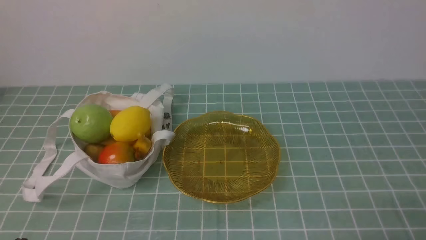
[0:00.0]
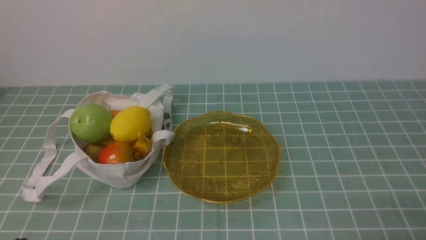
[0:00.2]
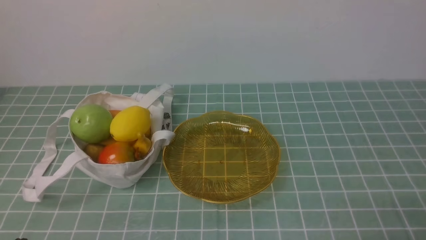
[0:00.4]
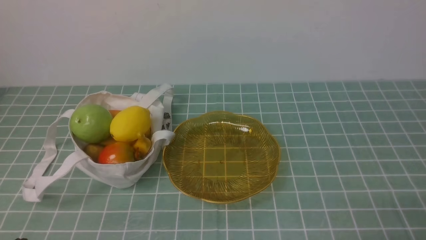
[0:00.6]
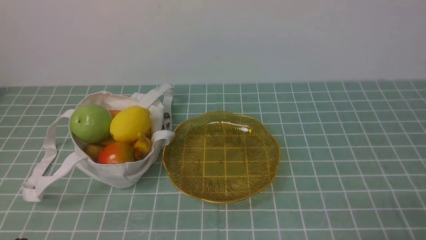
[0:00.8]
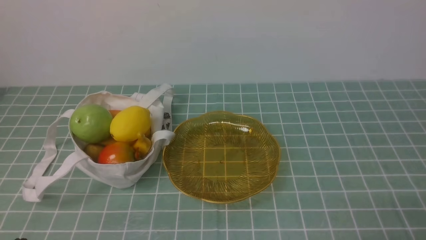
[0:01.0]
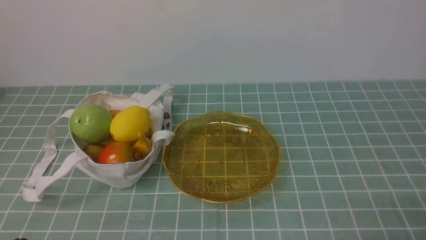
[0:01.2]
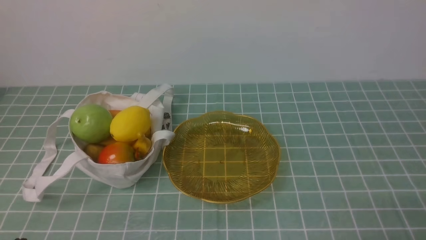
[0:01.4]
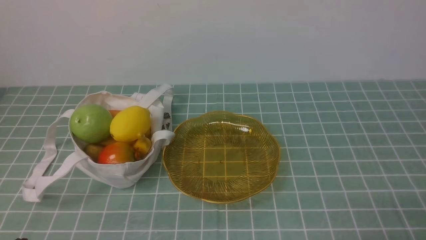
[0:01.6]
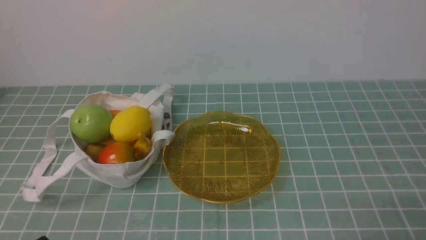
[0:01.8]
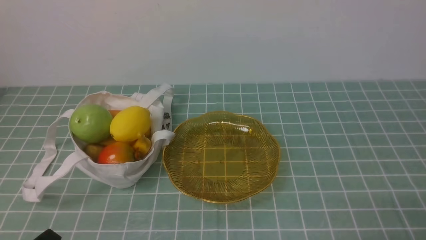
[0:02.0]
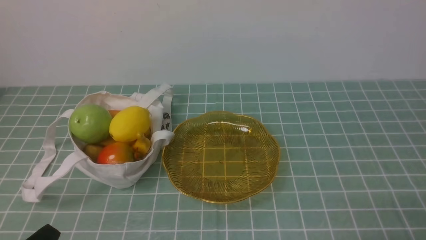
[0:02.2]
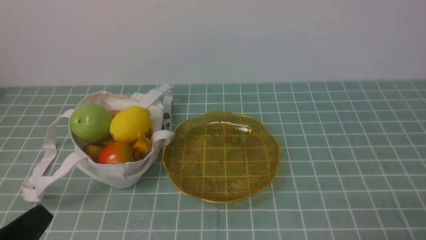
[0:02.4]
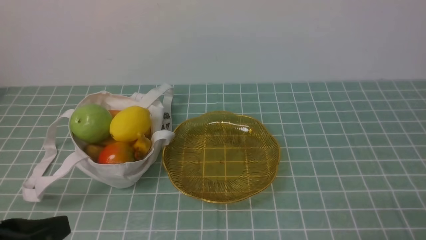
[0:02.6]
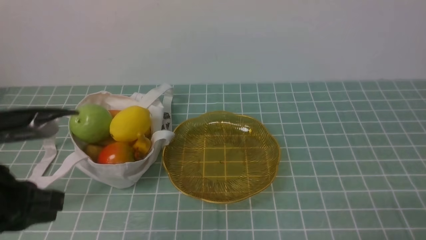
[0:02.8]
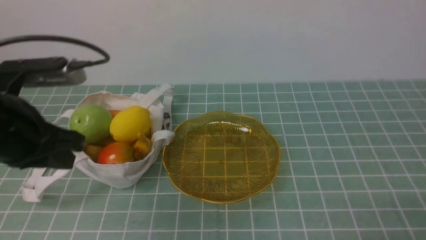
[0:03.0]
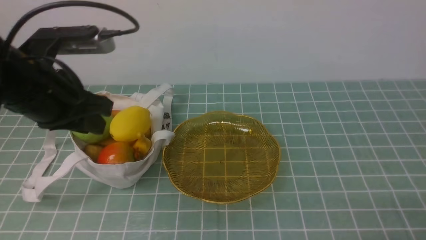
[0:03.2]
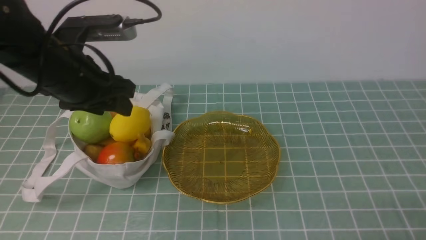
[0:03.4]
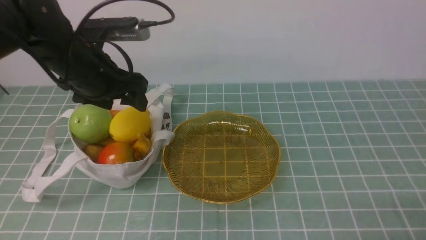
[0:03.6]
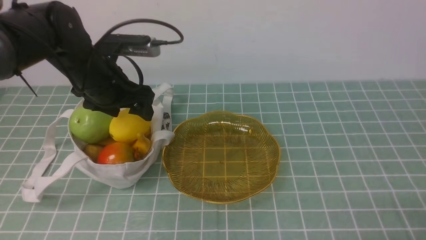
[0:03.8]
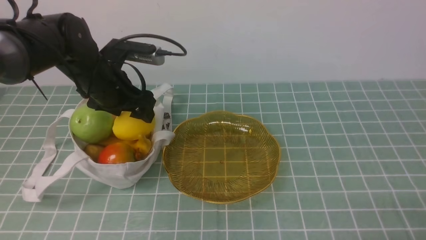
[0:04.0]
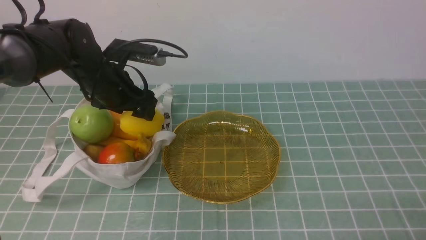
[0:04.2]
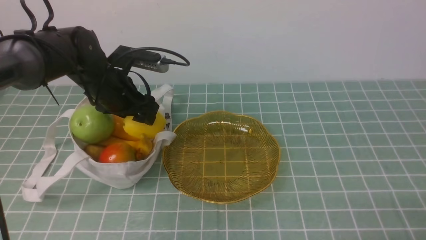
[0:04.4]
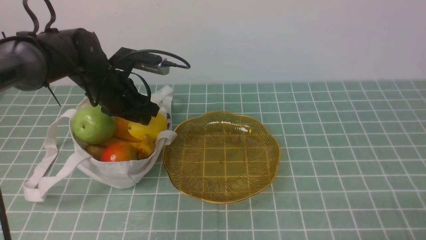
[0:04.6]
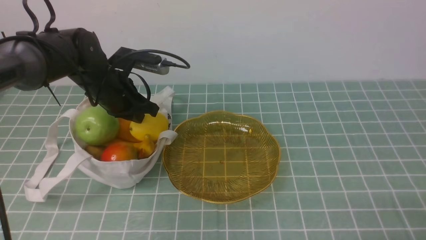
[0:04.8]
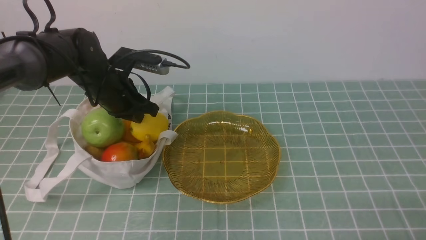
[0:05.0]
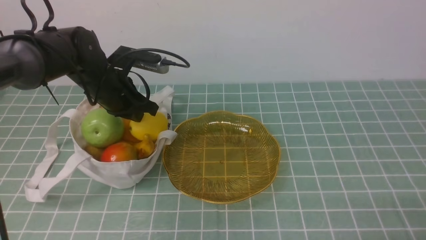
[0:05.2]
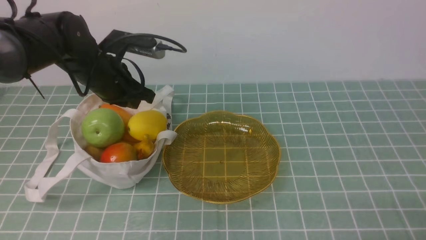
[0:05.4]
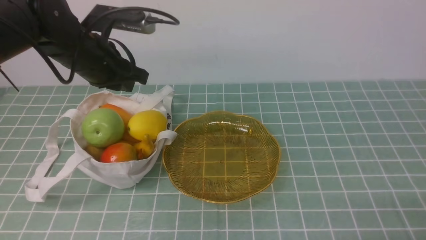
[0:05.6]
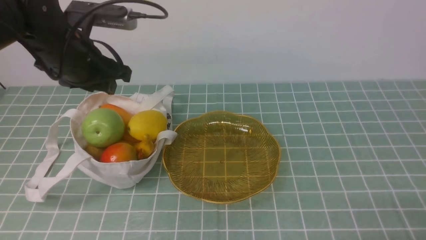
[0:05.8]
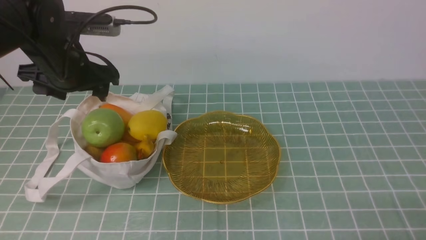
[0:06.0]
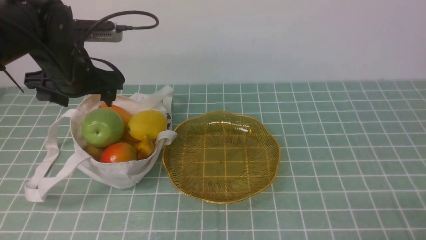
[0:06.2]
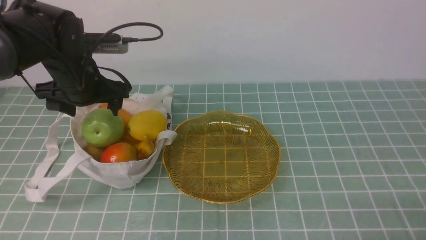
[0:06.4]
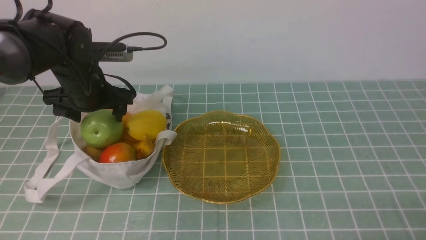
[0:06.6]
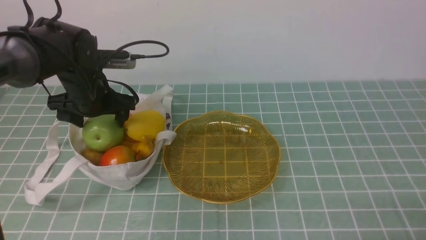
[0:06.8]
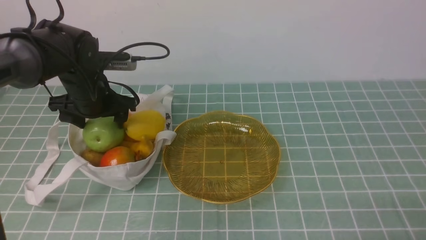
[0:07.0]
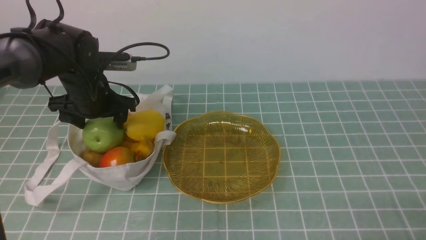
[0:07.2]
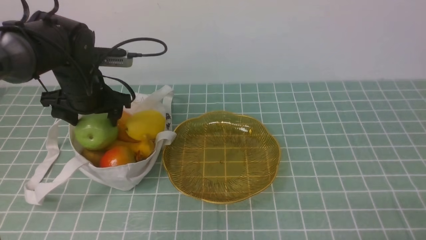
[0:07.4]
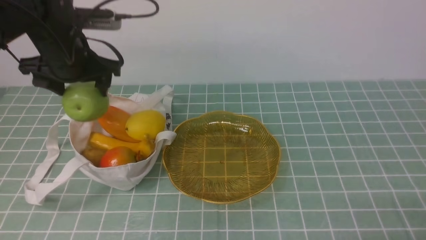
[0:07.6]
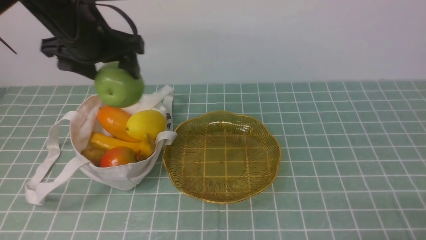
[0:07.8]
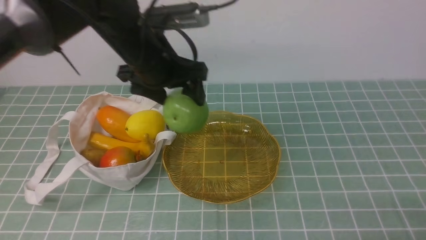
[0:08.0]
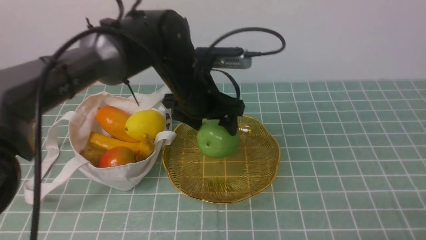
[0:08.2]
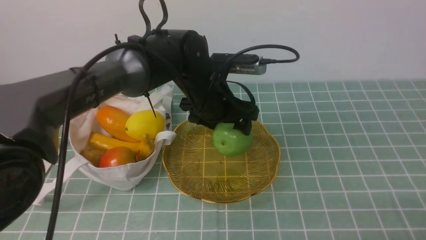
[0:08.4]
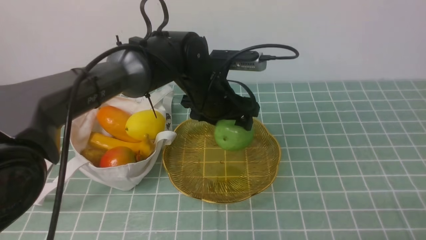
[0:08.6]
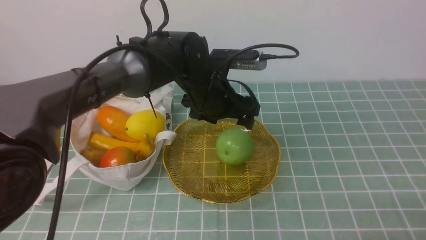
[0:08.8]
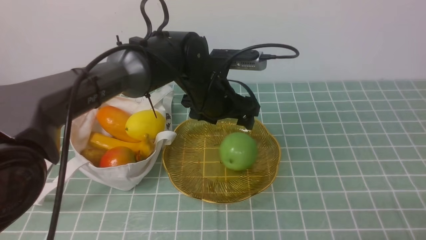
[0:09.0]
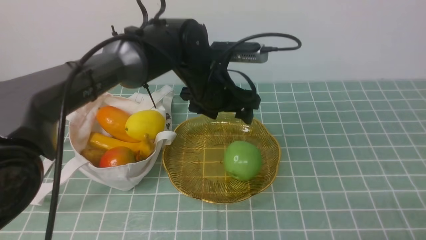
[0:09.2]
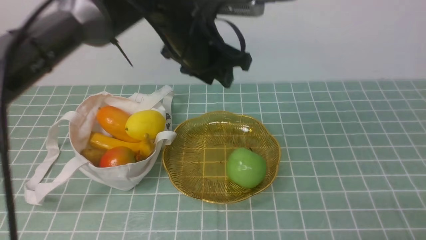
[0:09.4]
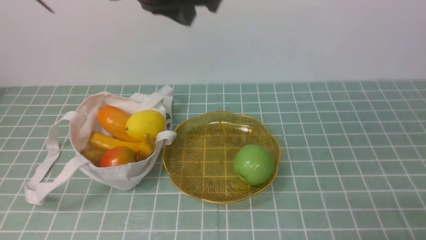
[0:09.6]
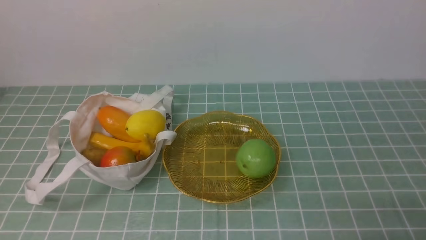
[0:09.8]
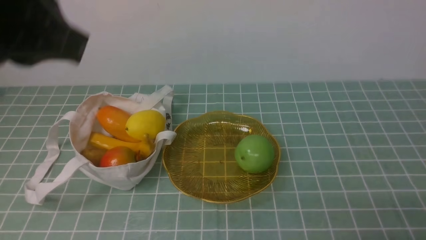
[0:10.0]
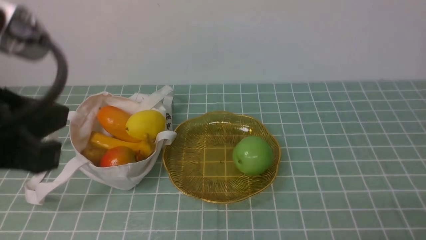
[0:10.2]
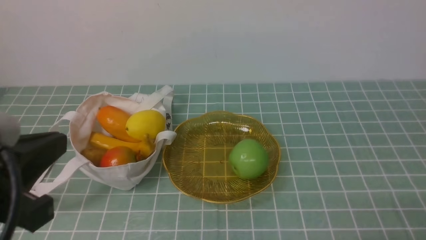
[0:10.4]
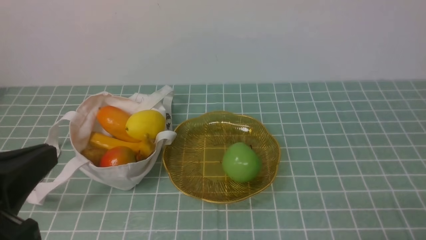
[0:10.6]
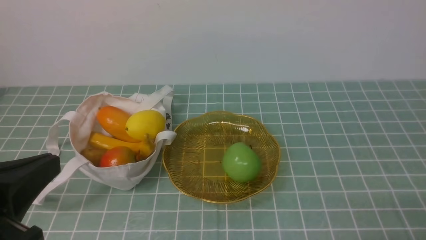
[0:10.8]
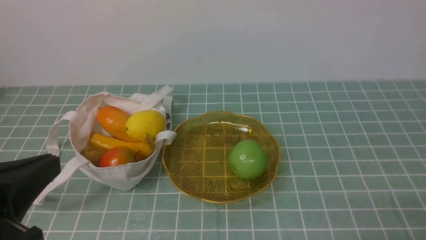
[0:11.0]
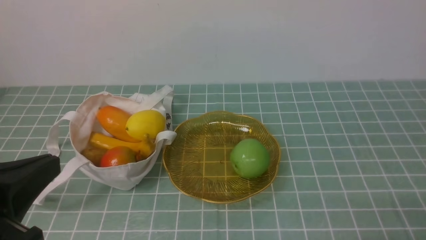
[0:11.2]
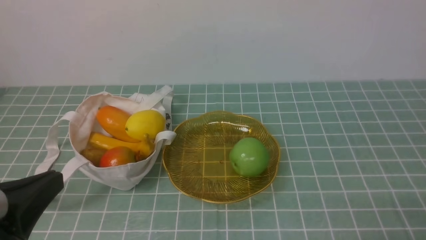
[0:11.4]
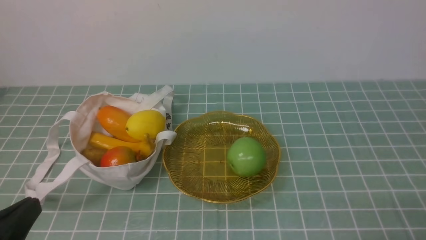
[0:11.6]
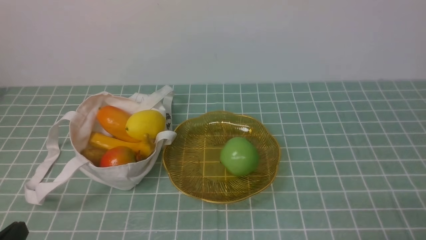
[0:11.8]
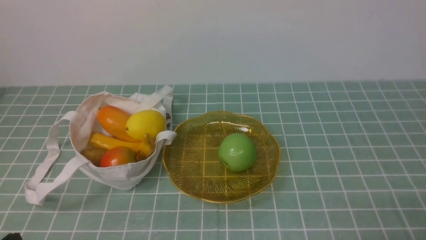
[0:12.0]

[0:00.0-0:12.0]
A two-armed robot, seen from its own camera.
Step, 0:00.0 to 0:07.2: use the left arm to grab an apple from the bag.
Step, 0:07.4 to 0:08.8: use the left arm to put the apple into the empty plate on the right.
0:01.6 to 0:03.0: The left gripper travels upward and forward by about 20 cm.
0:03.0 to 0:04.4: The left gripper moves forward, about 25 cm, and opens up.
0:04.4 to 0:06.0: The left gripper heads upward, covering about 5 cm, and closes, then opens again.
0:06.0 to 0:07.6: The left gripper moves some 10 cm downward and comes back.
0:07.6 to 0:09.0: The left gripper travels to the right by some 20 cm.
0:09.0 to 0:10.4: The left gripper moves backward, to the left and upward, roughly 35 cm, and closes up.
0:10.4 to 0:12.0: The left gripper shifts some 20 cm downward.

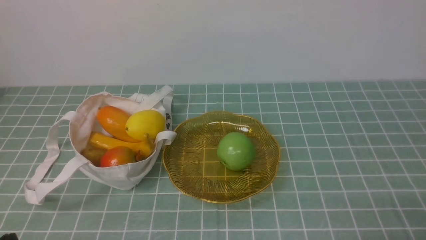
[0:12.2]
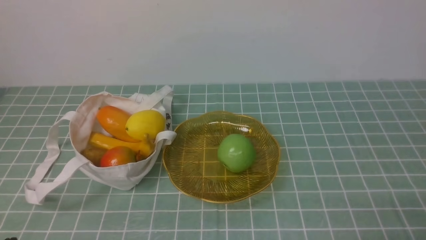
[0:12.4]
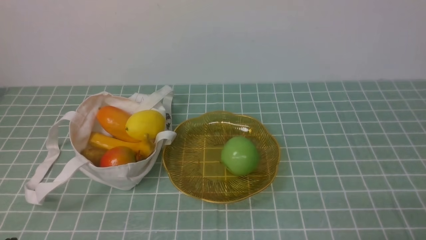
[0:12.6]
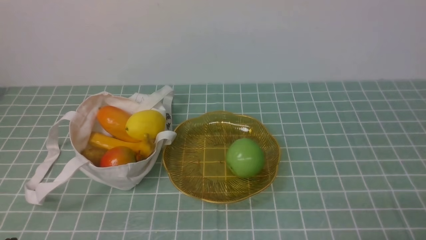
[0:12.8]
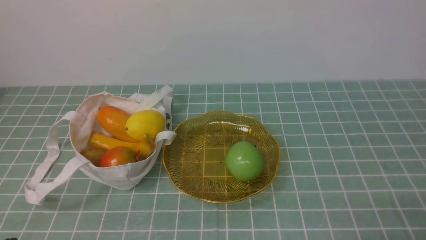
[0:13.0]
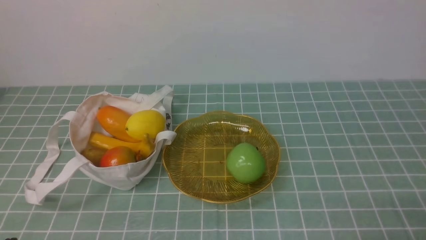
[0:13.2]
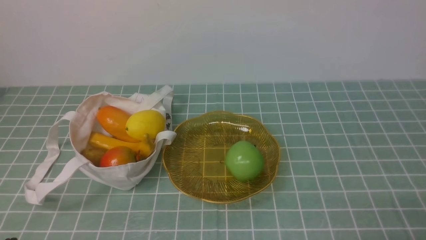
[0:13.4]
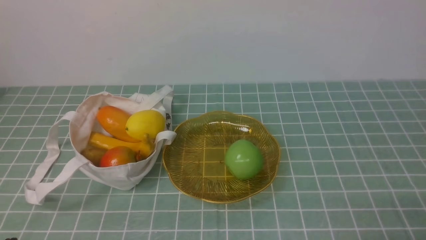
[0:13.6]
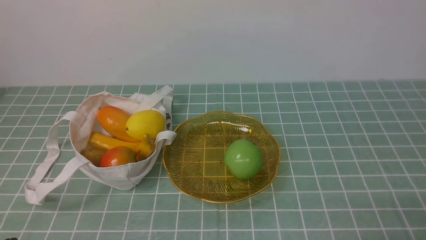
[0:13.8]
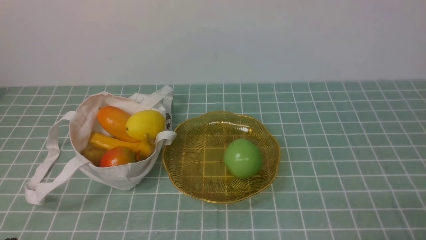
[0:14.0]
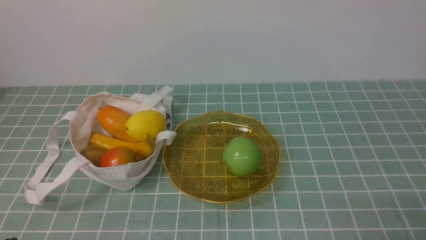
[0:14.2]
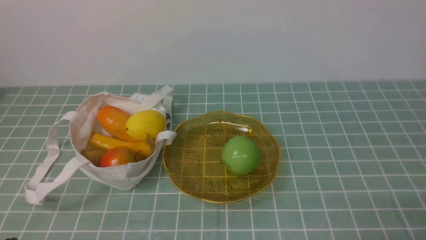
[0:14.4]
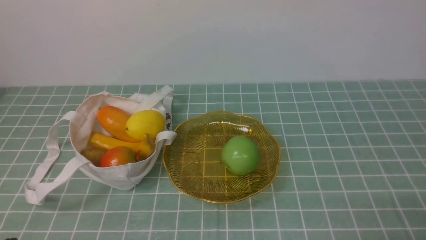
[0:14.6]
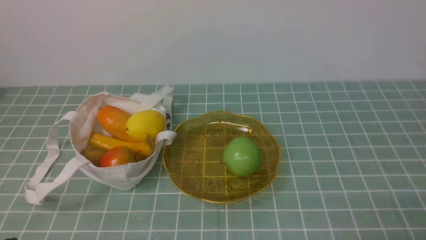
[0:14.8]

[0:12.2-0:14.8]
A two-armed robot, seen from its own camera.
0:12.2 to 0:14.8: The two grippers keep their place.

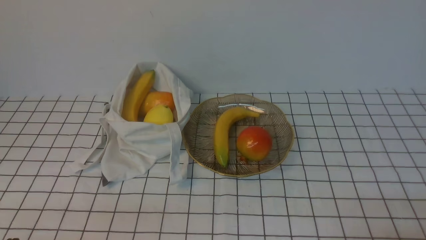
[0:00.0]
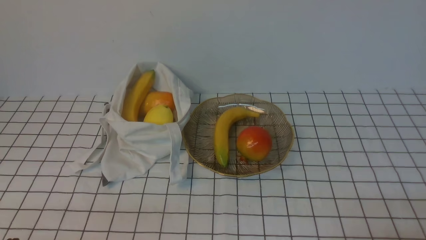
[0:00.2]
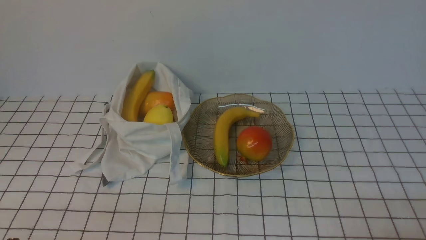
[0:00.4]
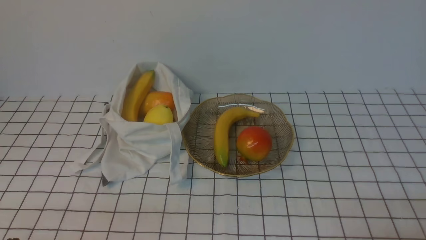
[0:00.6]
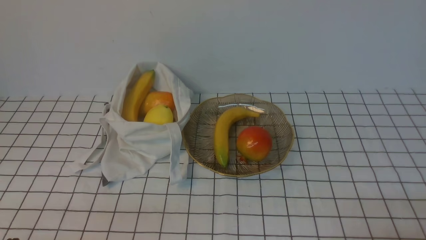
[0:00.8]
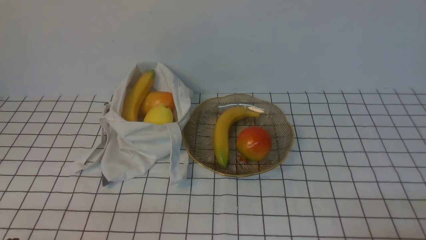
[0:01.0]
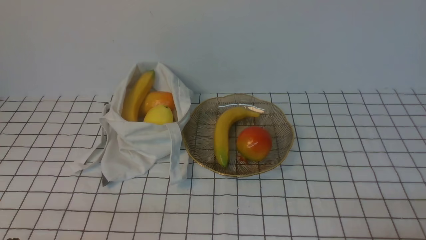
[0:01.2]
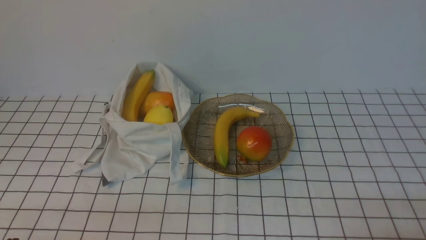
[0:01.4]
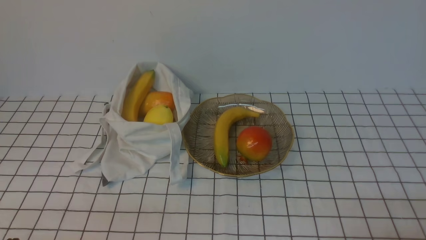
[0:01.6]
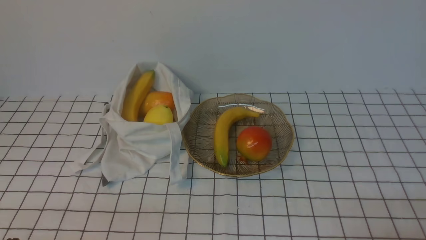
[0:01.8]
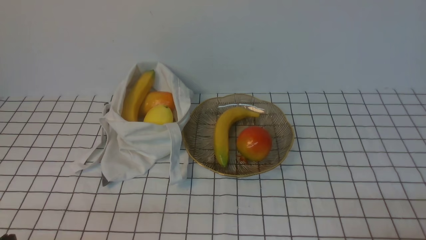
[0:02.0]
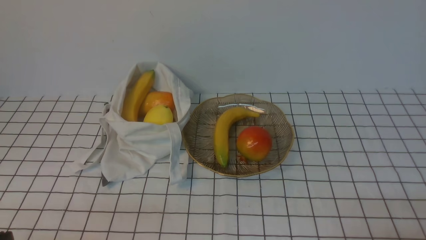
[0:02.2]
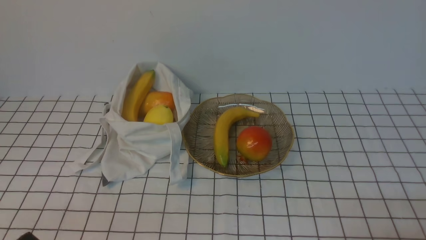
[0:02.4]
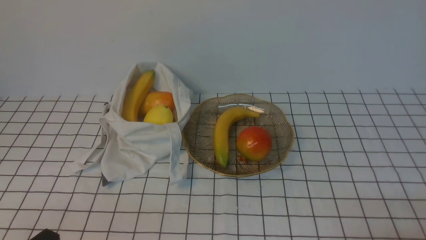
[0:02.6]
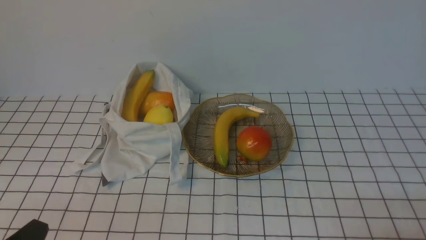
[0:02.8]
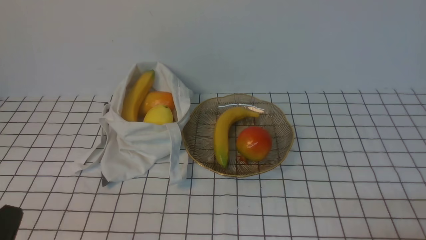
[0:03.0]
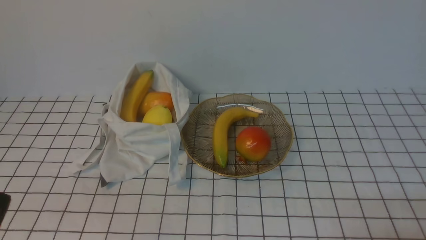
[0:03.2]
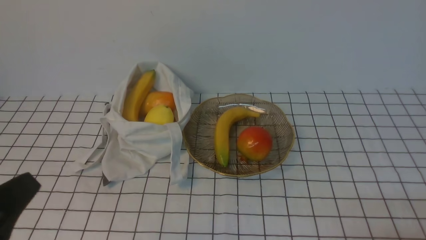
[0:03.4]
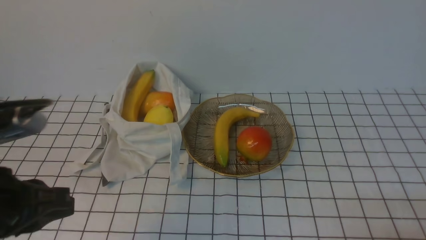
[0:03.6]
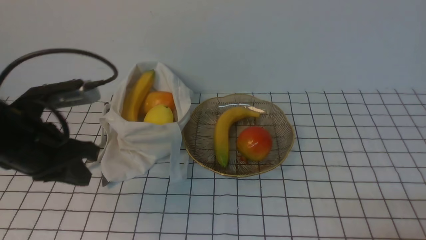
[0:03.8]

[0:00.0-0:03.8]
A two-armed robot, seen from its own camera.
0:00.0 to 0:01.2: The two grippers keep their place.
0:02.6 to 0:03.8: The left gripper is displaced forward and upward by roughly 25 cm.
